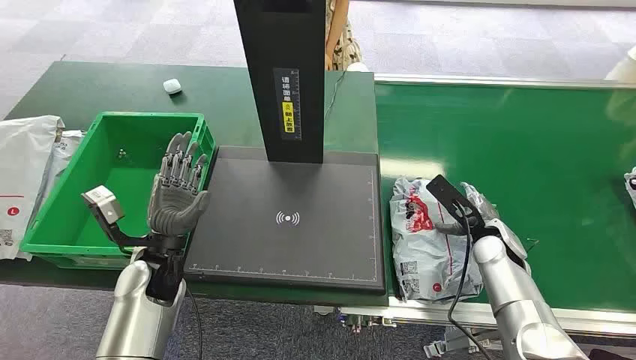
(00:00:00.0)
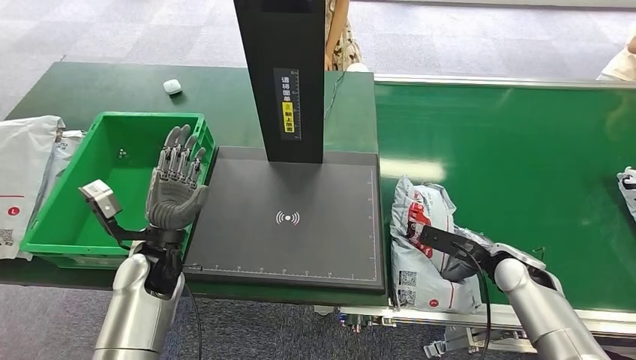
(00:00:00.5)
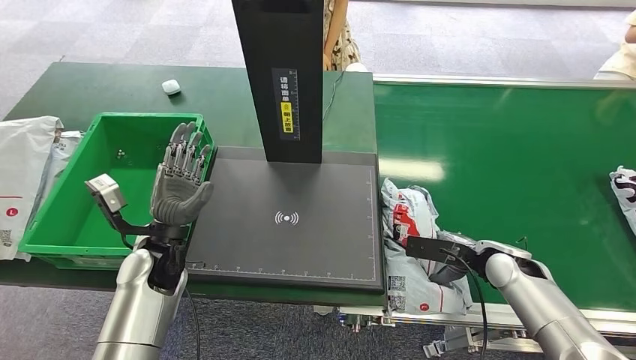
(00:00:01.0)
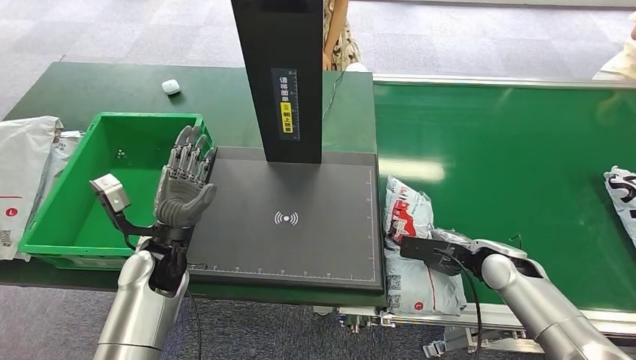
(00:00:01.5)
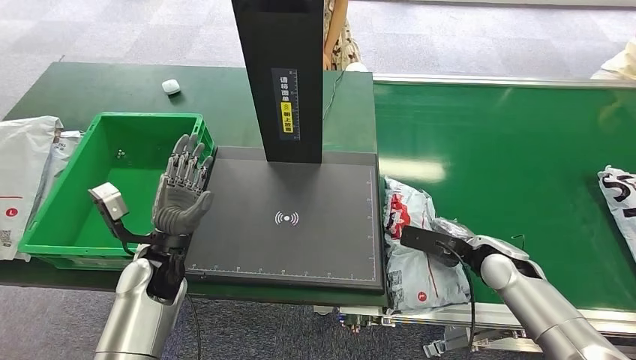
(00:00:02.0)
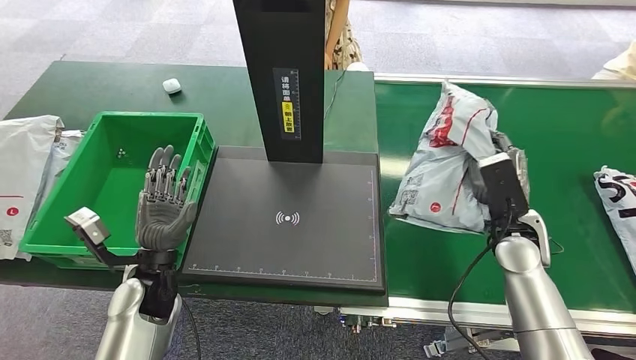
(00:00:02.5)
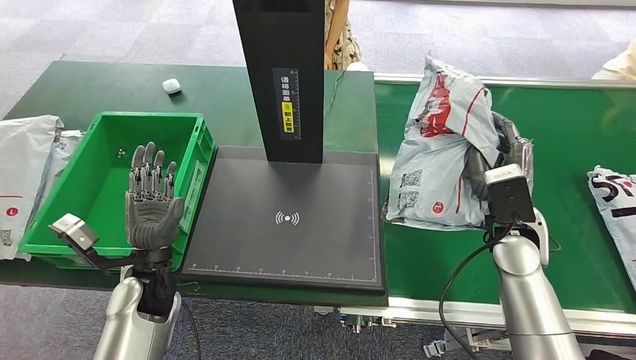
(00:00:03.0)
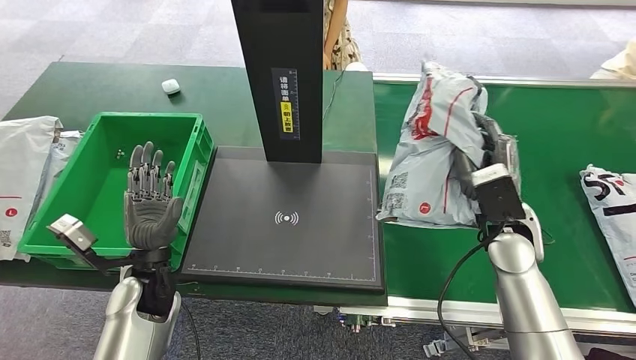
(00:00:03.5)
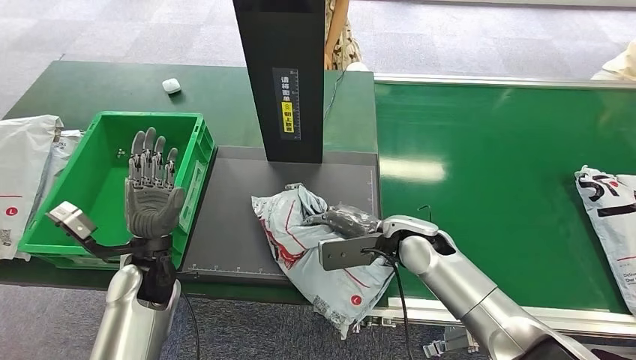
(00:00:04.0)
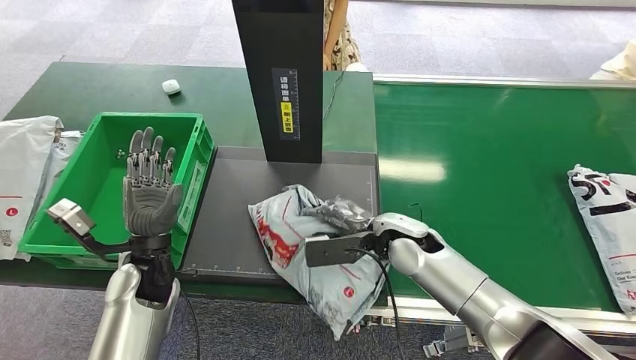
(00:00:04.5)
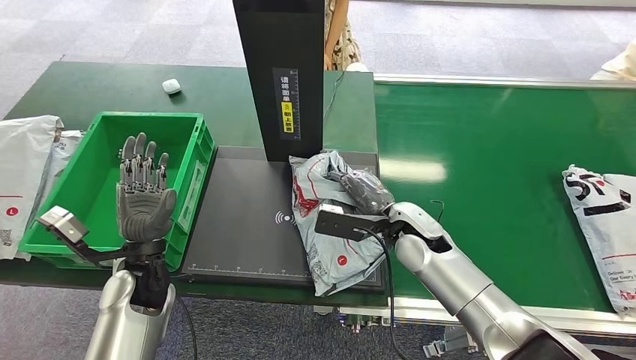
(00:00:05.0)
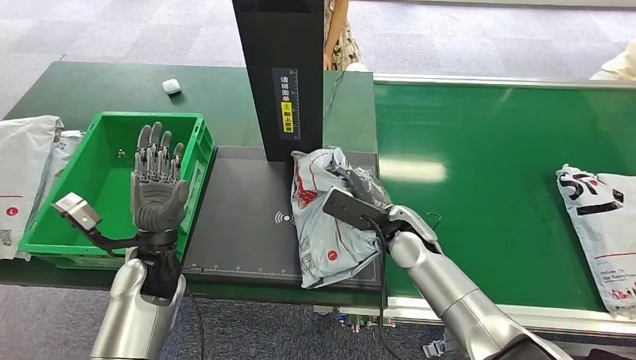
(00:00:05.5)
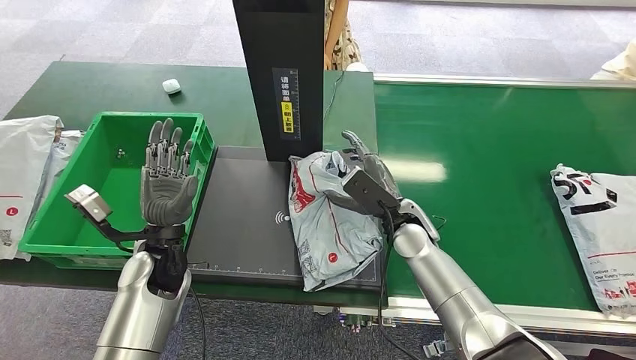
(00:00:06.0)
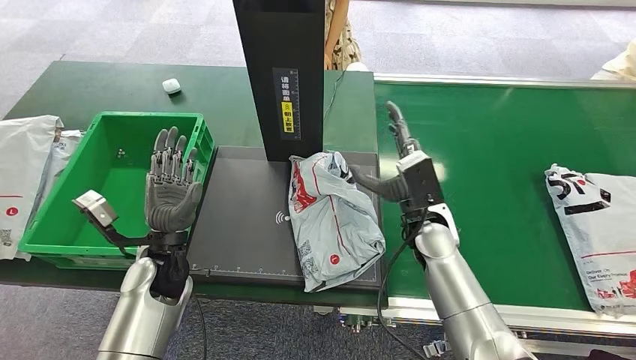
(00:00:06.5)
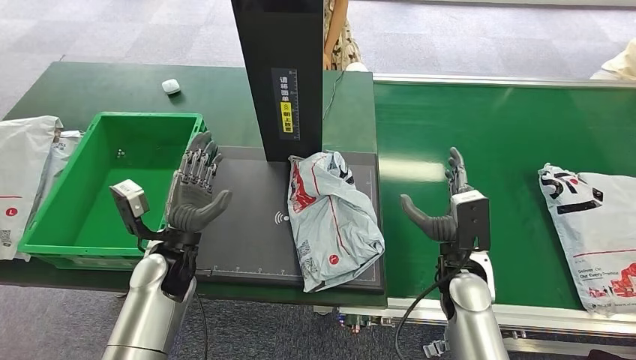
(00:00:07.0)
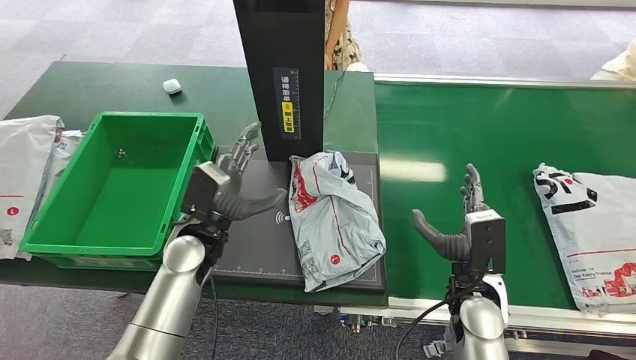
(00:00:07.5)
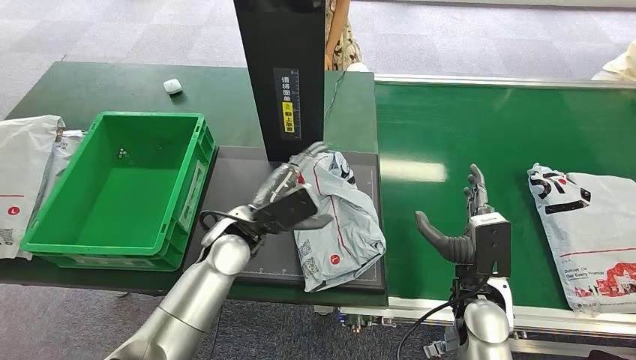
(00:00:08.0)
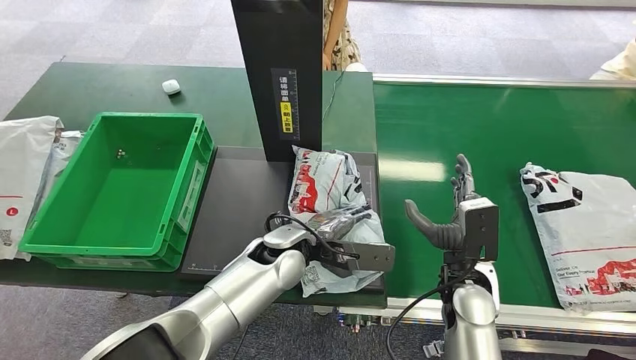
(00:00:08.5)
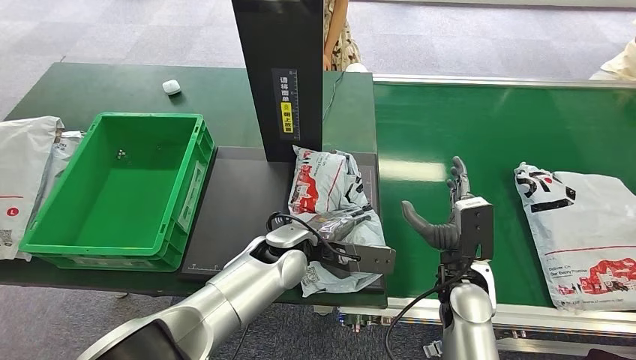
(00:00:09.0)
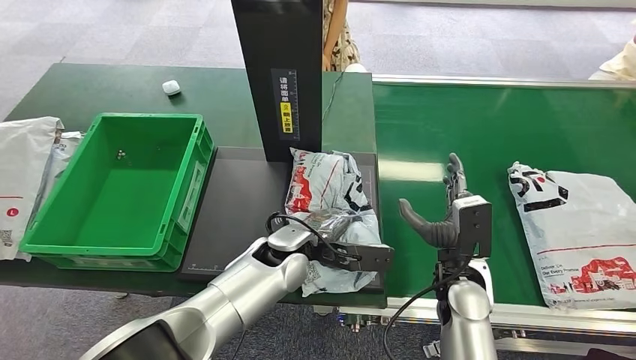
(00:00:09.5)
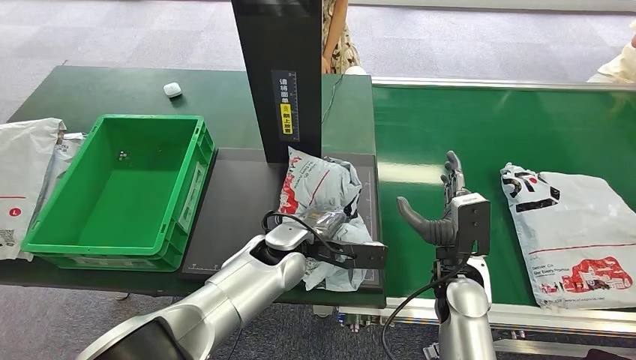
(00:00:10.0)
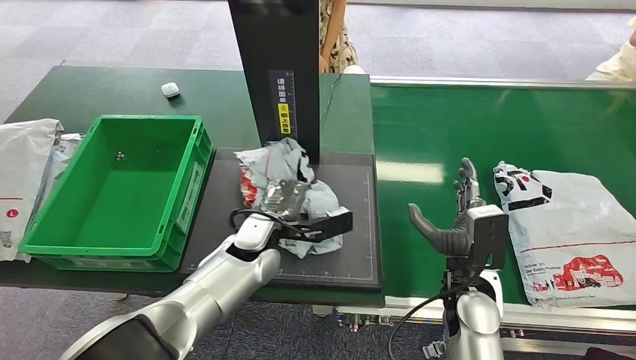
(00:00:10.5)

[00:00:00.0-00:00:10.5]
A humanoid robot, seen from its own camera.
Step, 00:00:00.0 to 00:00:02.5: Pick up the package from the conveyor belt.
Step, 00:00:03.0 to 00:00:07.0: Place the package onto the inbound machine.

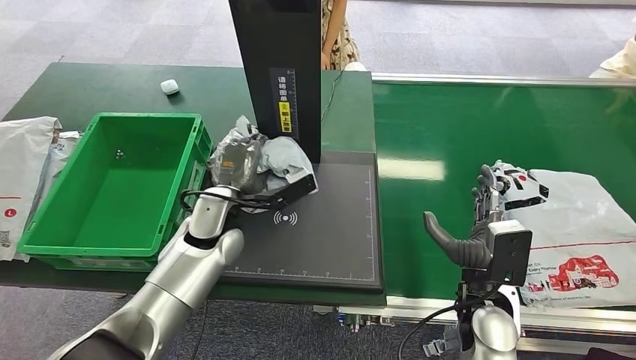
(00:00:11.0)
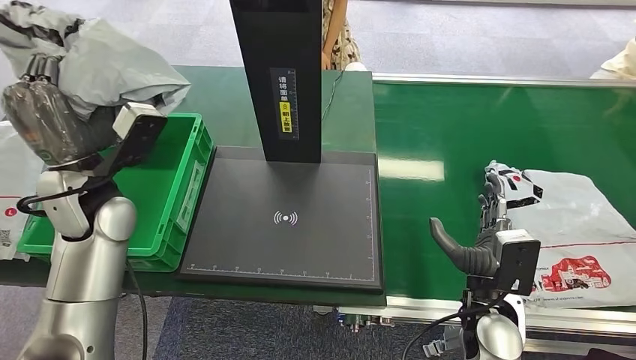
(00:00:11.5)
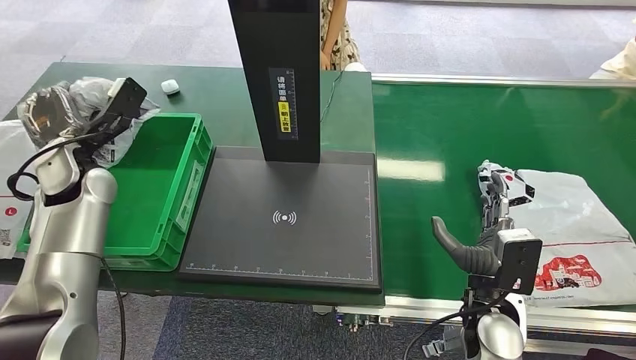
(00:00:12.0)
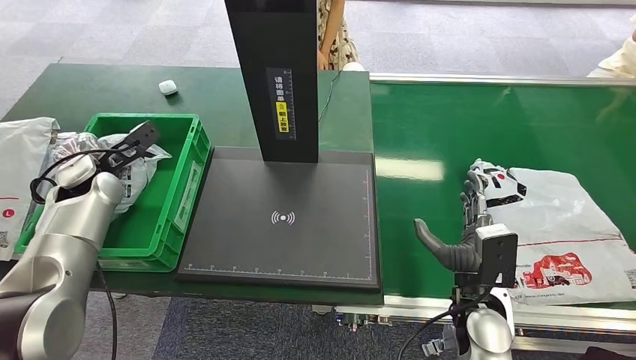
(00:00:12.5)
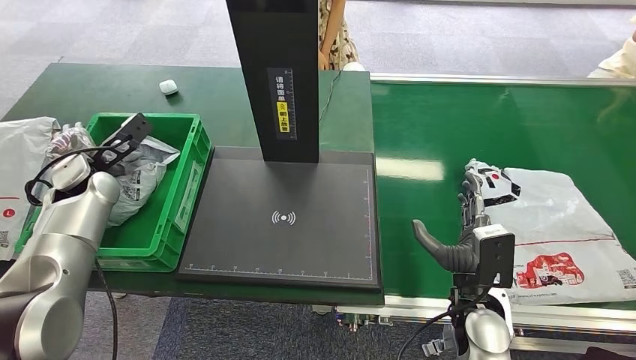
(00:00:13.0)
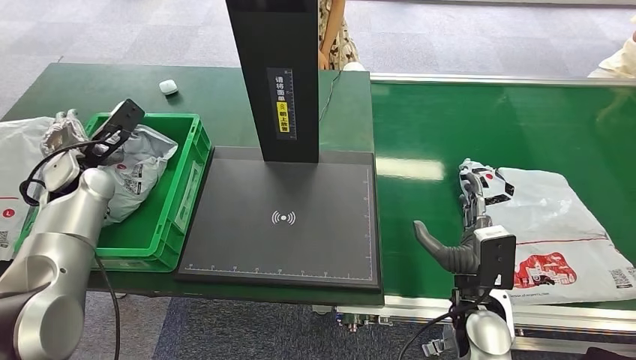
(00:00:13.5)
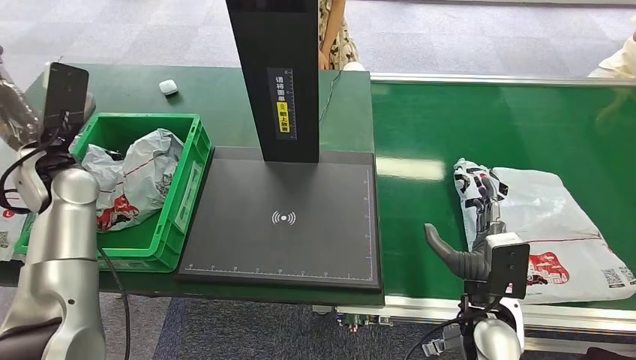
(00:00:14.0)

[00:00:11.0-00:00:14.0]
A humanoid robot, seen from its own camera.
Step, 00:00:12.5 to 00:00:14.0: Place the package into the parcel locker.
00:00:12.5 to 00:00:14.0: The left hand goes roughly 5 cm upward.
